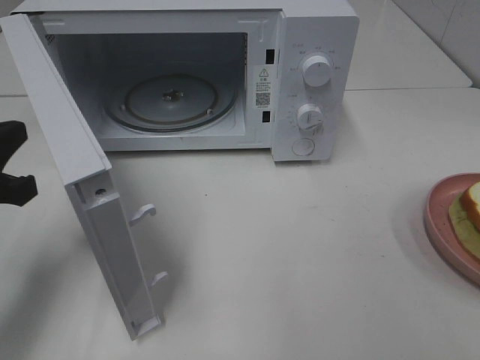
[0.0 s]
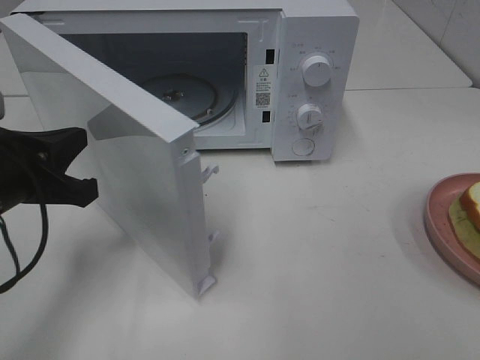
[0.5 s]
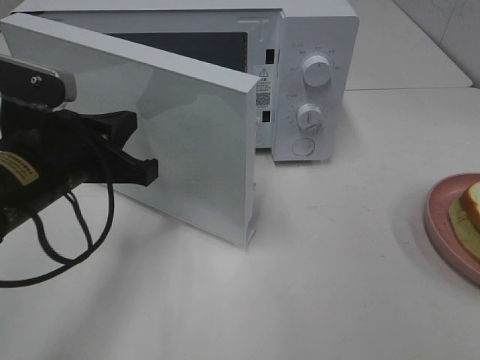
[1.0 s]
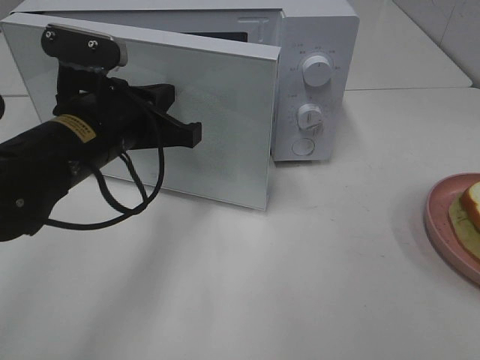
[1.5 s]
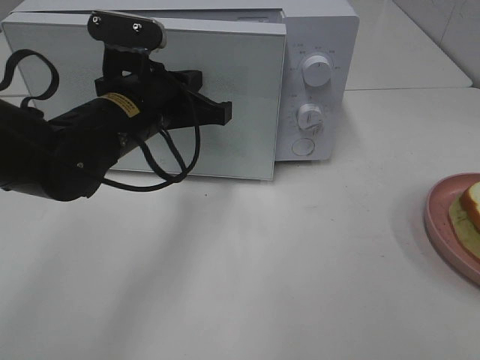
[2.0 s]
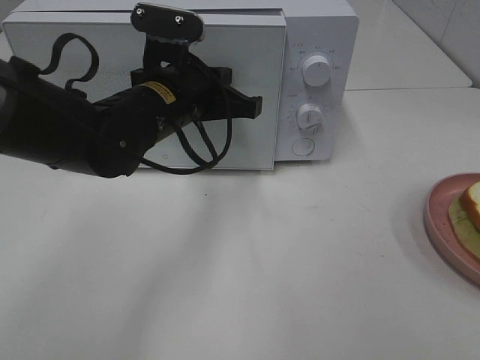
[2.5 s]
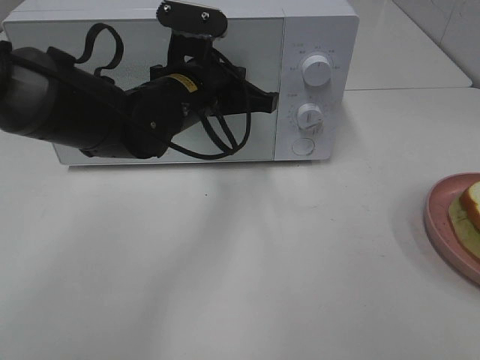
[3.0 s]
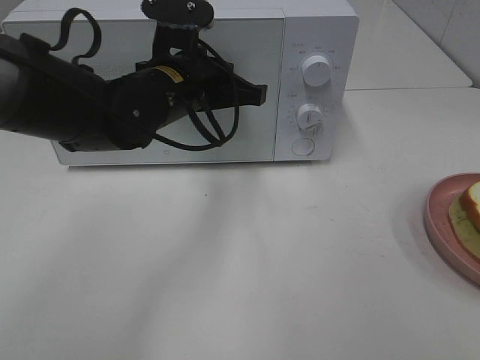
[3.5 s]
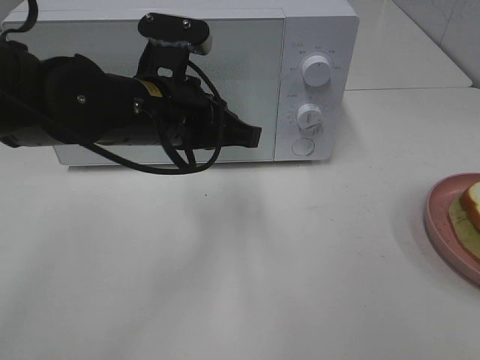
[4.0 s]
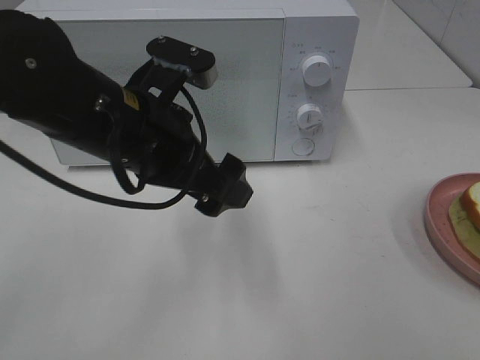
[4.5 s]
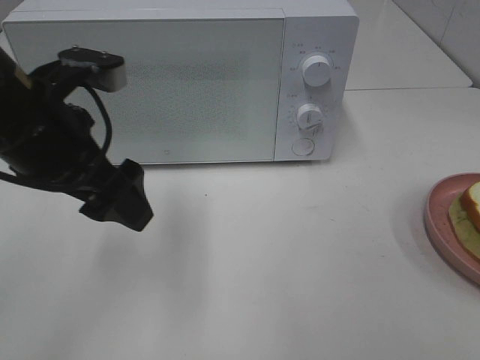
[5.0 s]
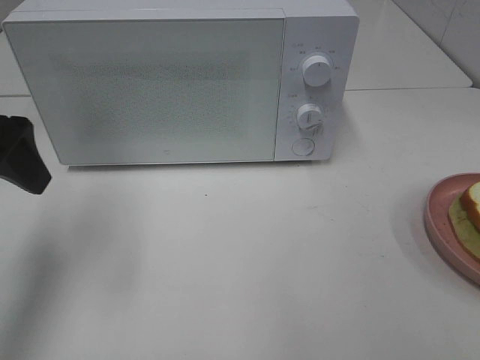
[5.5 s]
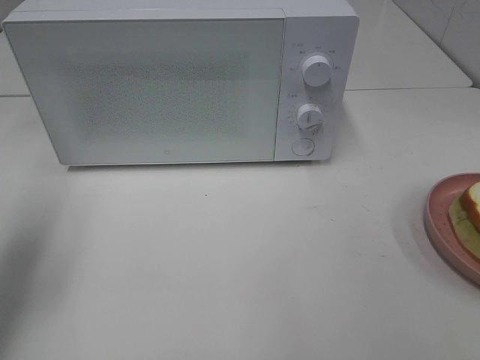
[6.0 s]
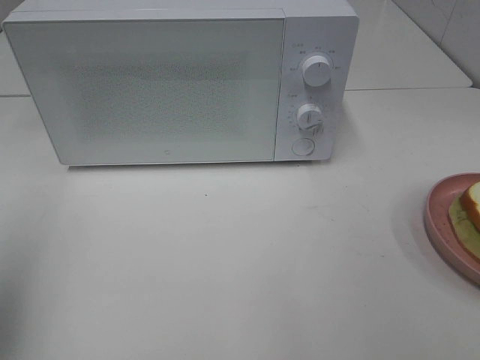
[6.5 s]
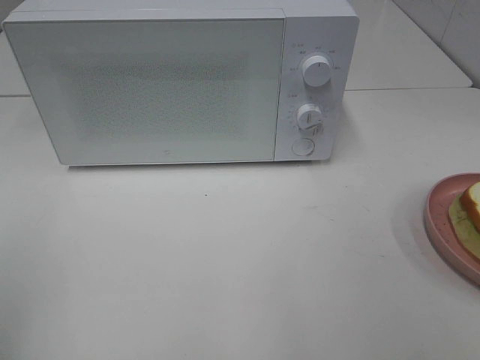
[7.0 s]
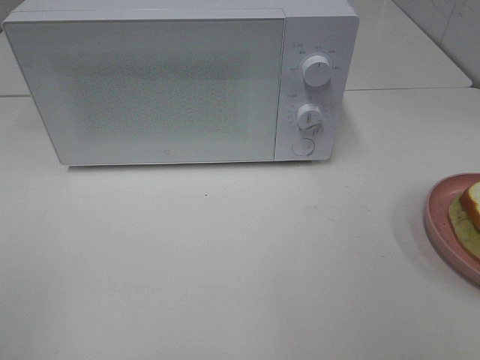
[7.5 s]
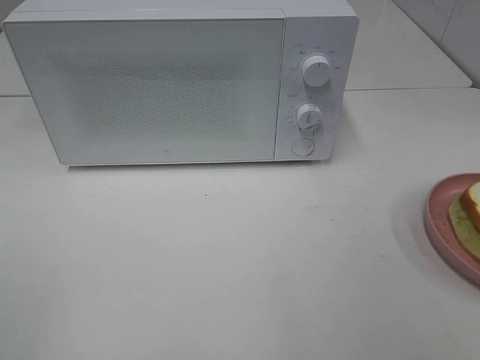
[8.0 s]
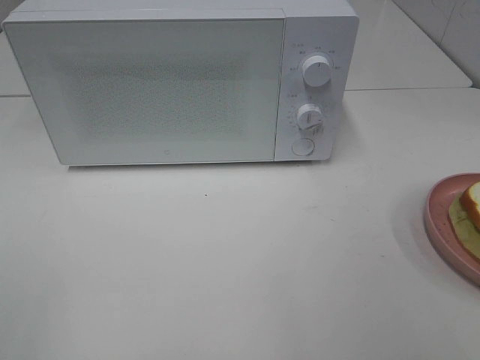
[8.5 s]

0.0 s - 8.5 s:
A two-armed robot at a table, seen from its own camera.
Task of the whole recording: Heat Sandwich.
Step, 0.0 s - 3.5 s: Left hand: close the microwave door.
0.0 s - 2.0 s: The left gripper heads to the right and forward, covering approximately 20 cm.
4.0 s - 6.5 s: The left gripper heads to the left and backward, covering some 30 cm, and opens up.
6.5 s - 8.5 s: The left gripper heads backward, covering roughly 15 cm.

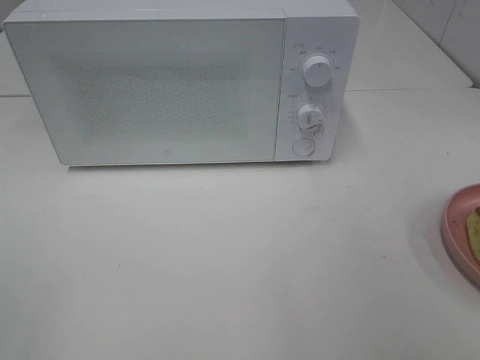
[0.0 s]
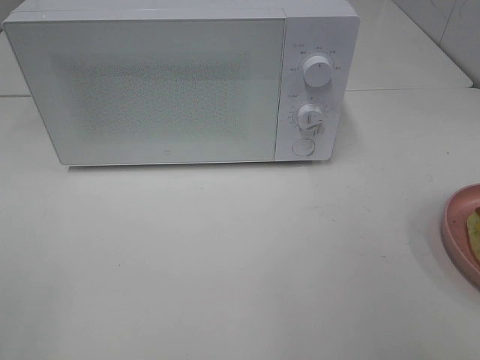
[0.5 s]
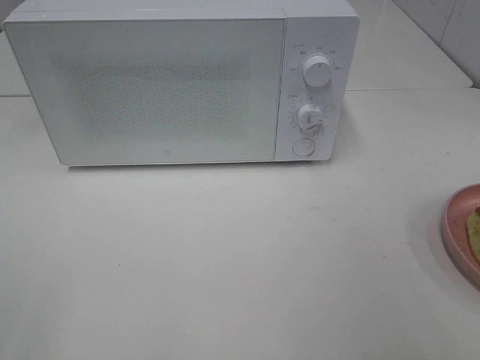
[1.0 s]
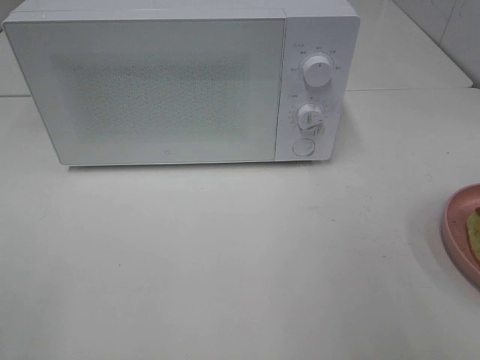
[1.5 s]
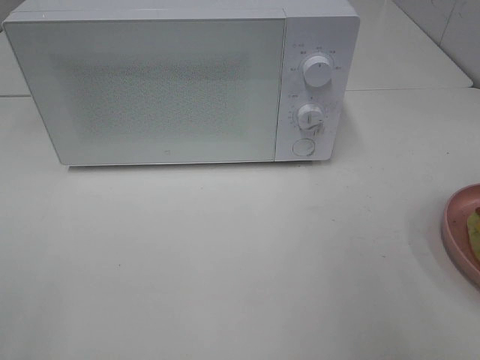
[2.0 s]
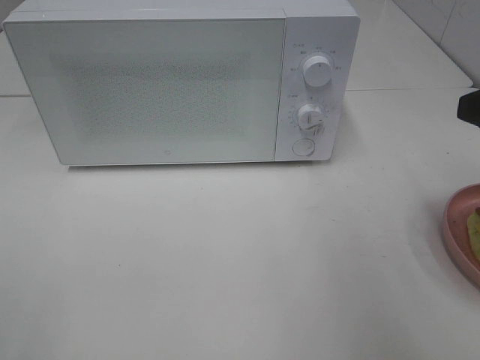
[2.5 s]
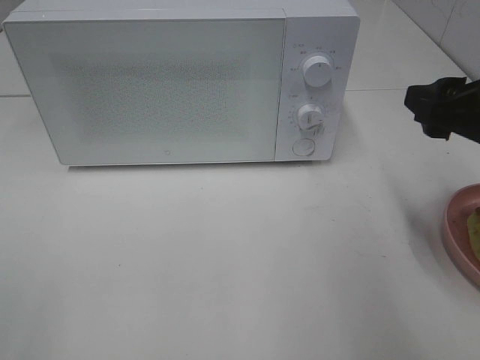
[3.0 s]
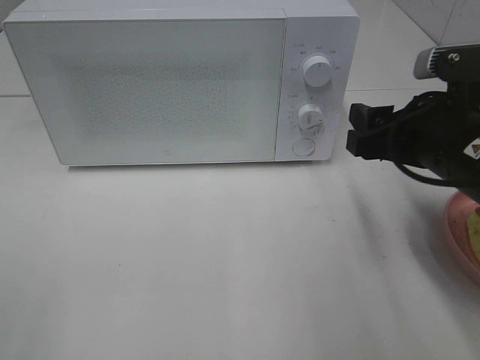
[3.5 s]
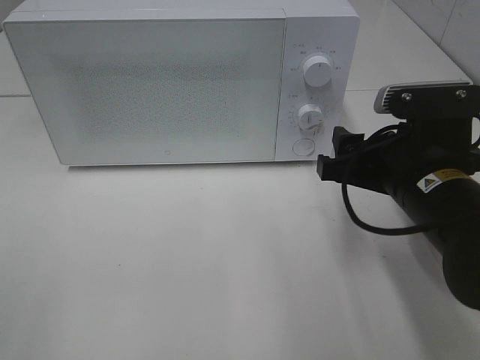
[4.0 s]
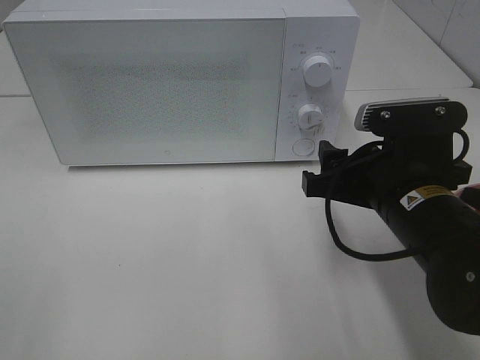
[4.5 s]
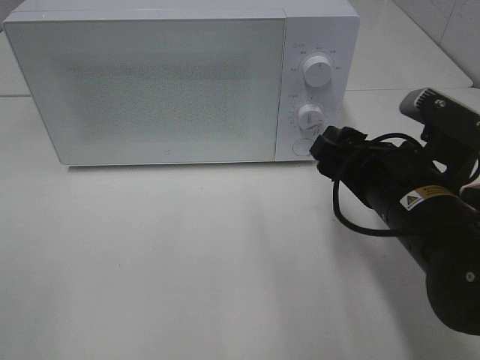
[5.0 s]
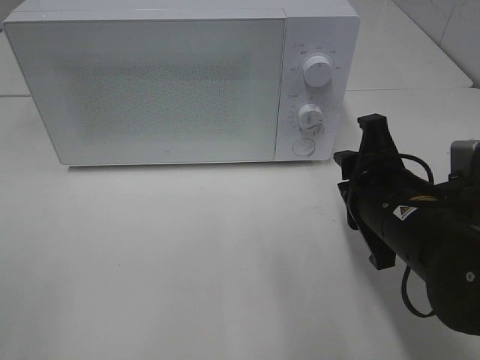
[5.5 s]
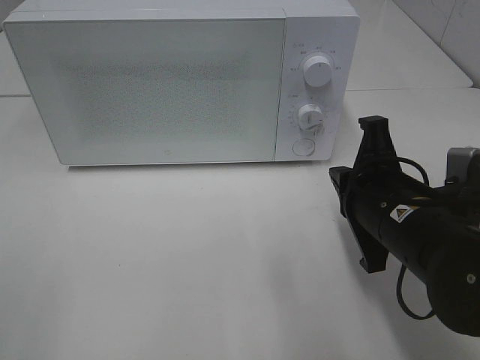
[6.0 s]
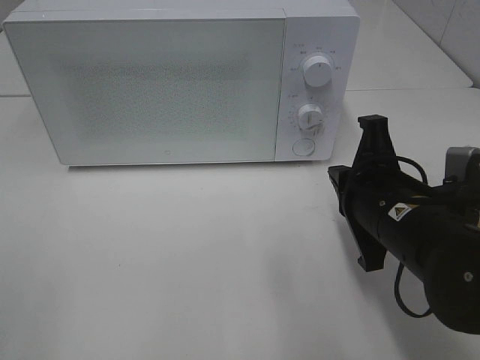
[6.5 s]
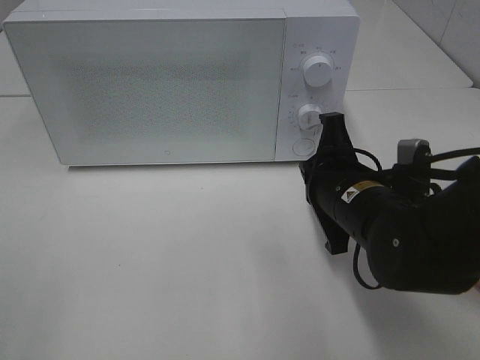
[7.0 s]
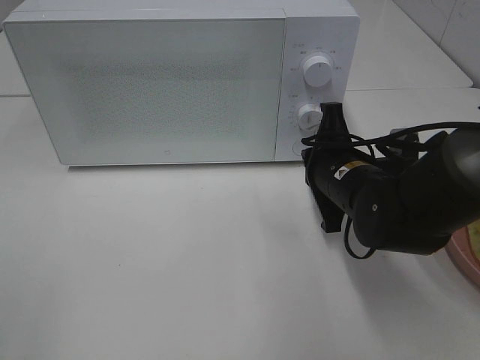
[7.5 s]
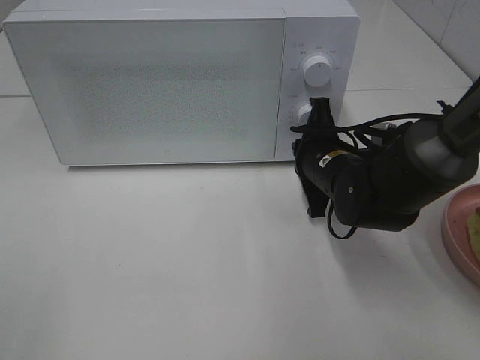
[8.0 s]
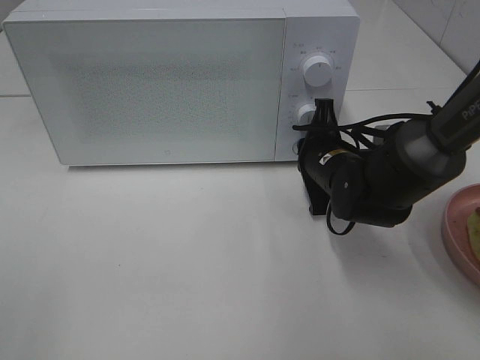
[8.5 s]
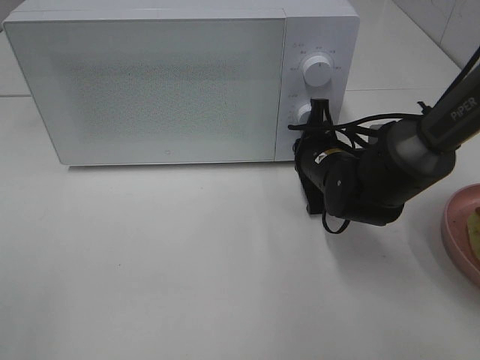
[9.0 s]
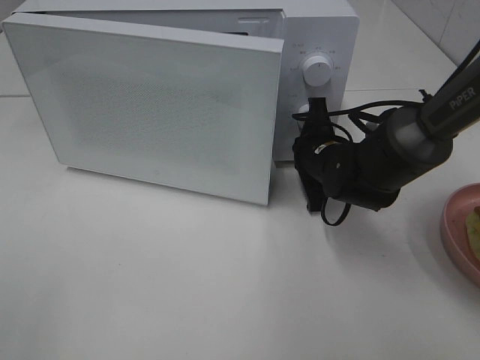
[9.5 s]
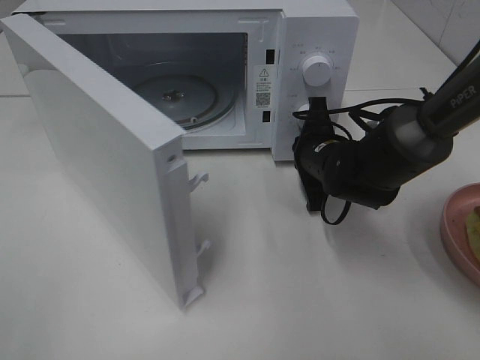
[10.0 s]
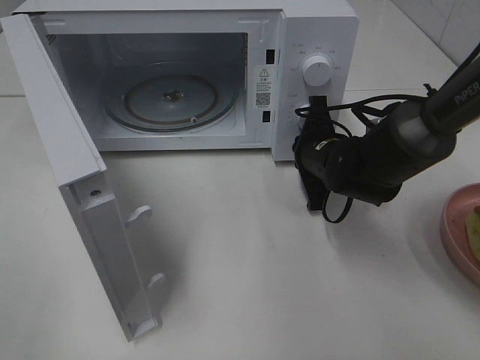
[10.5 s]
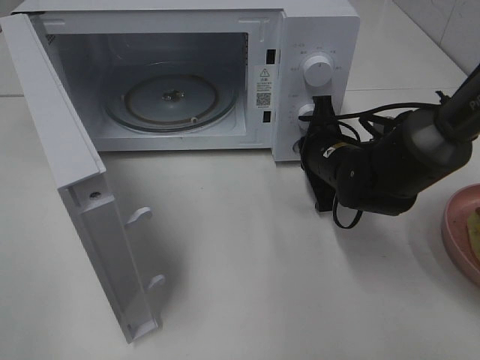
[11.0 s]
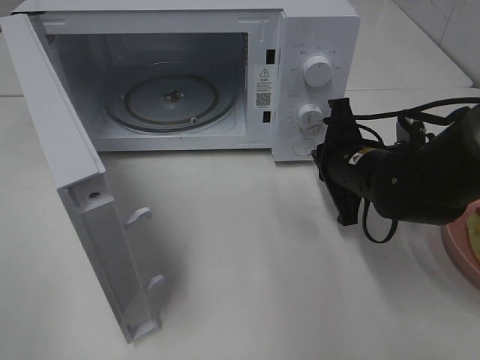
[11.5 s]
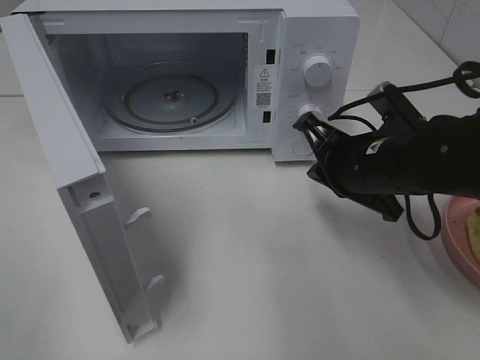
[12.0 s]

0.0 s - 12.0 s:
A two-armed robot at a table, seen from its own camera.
Task of the whole recording: Heat Sandwich.
Step, 0.0 s - 11.5 s: Right hand: press the switch.
2.0 s - 4.0 s: The right gripper goes roughly 20 cm downward, to the left and forward.
4.0 s - 6.0 s: The right gripper closes up.
6.0 s - 8.0 s: The right gripper goes roughly 15 cm forward and downward.
10.0 s - 12.0 s: The right gripper is displaced backward and upward by some 10 cm.

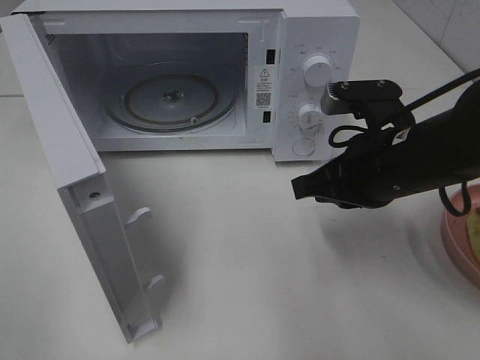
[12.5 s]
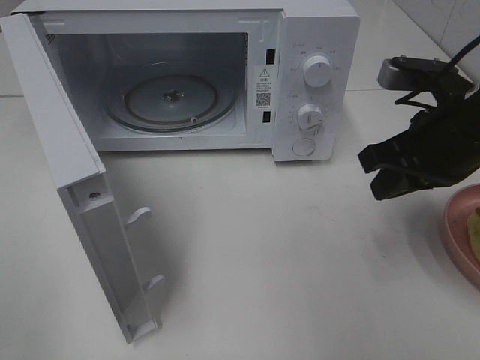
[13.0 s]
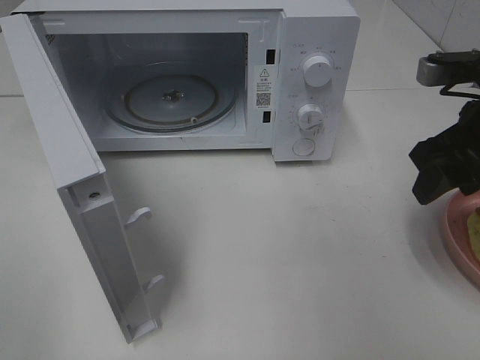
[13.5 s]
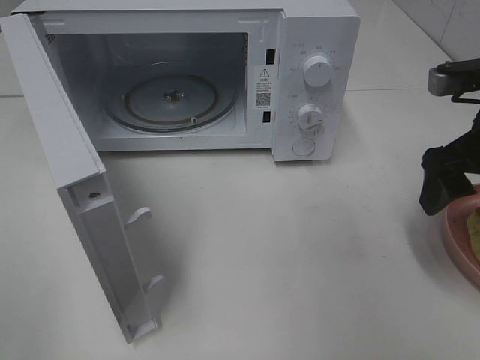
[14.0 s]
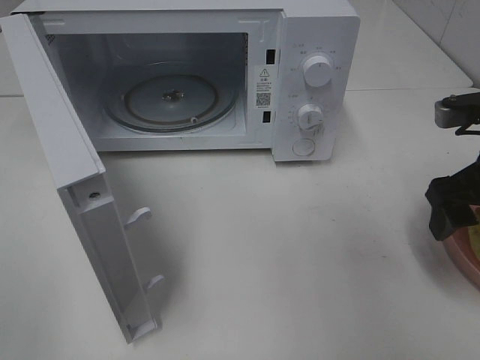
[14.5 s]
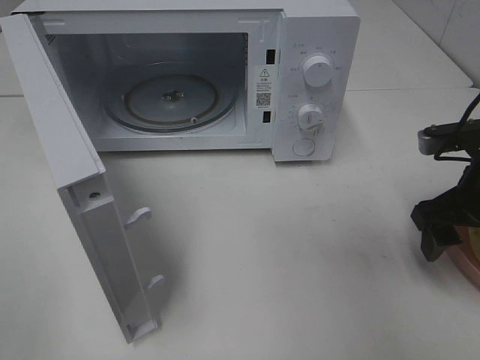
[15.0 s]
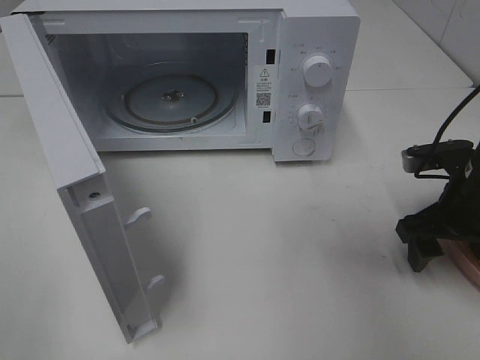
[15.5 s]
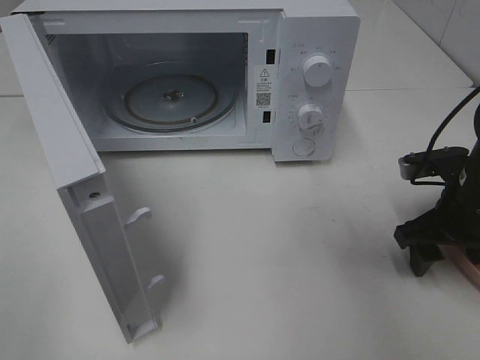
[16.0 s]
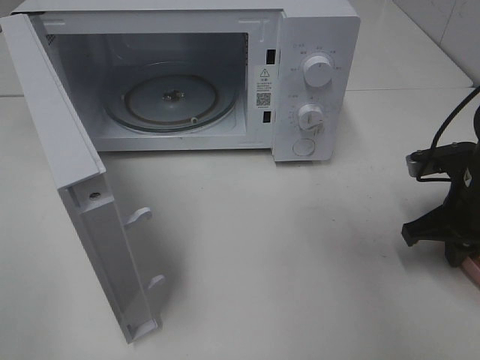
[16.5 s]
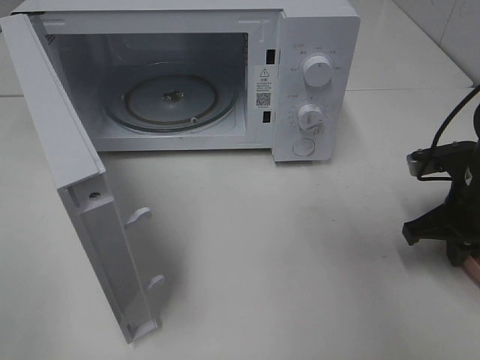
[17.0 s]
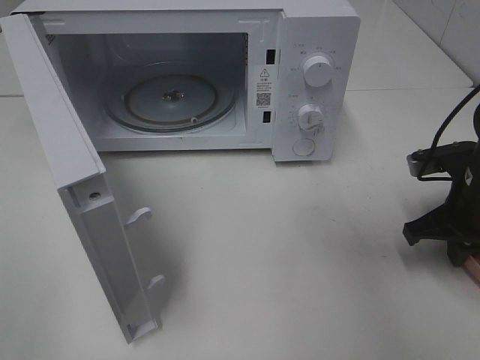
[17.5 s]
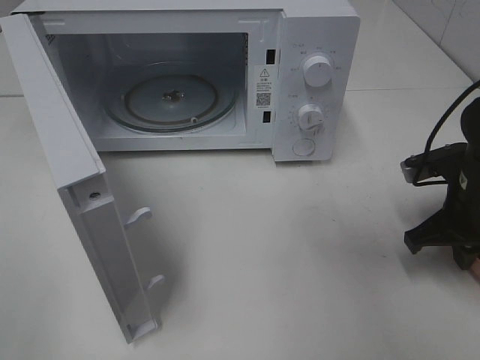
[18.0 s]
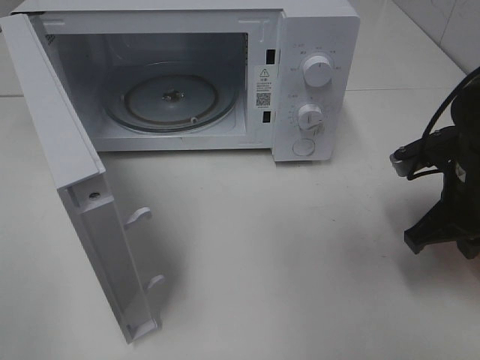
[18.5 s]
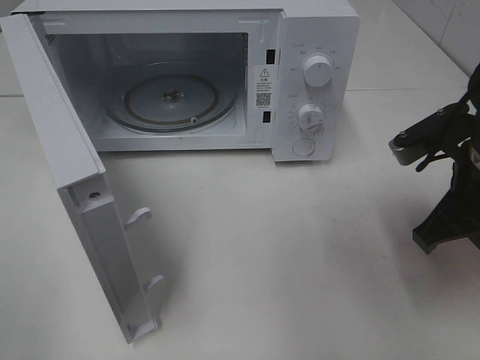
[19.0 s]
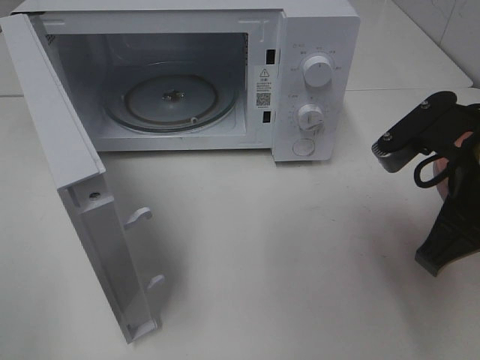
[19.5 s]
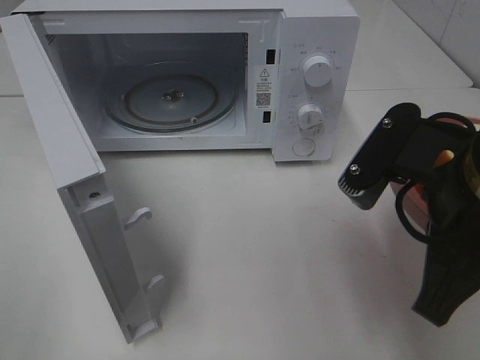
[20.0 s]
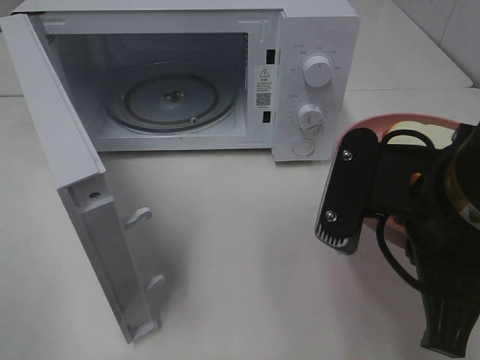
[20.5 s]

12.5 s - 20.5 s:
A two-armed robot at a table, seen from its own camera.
Task of the whole recording: Heat Sandwich.
Step, 12.5 s - 18.0 s: Right hand: grab the plate with the sandwich.
12.5 s - 14.5 s: The right gripper shifts approximately 10 cm to the right, and opens.
14.5 s - 16.5 s: The right gripper goes some 10 cm downward, and closes.
16.5 s - 18.5 s: The right gripper moves approximately 5 cm.
18.5 s - 20.5 s: The right gripper heads backward, to the left and upward, covering about 20 cm.
